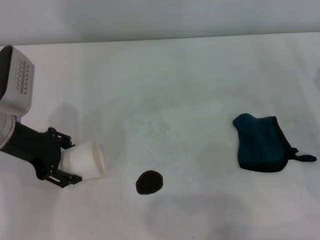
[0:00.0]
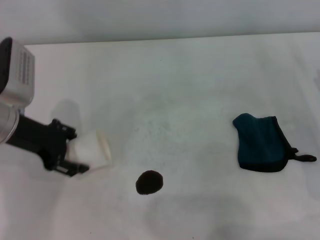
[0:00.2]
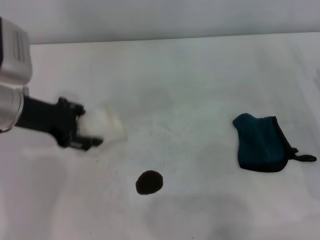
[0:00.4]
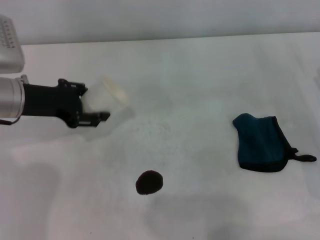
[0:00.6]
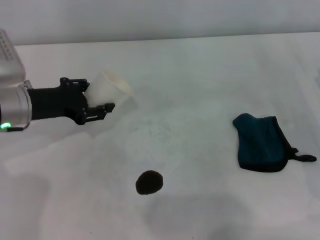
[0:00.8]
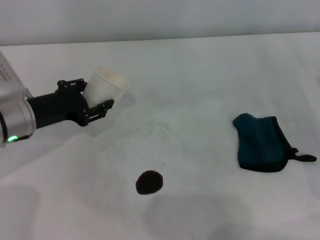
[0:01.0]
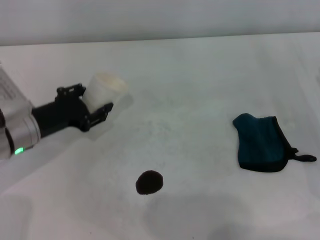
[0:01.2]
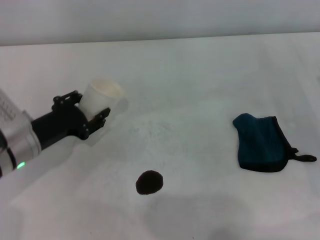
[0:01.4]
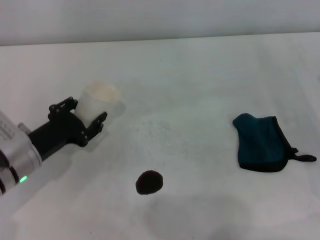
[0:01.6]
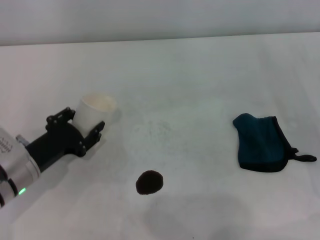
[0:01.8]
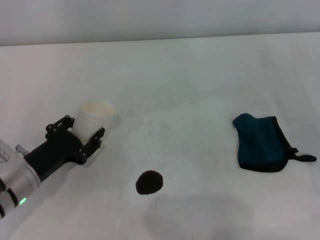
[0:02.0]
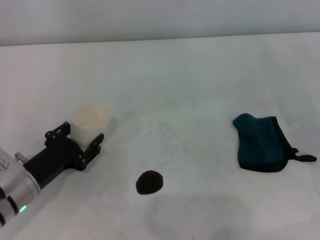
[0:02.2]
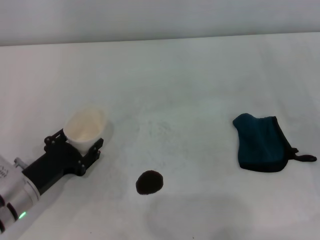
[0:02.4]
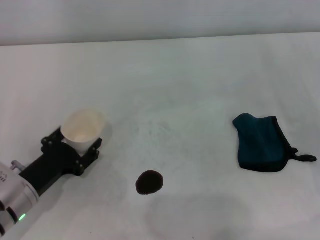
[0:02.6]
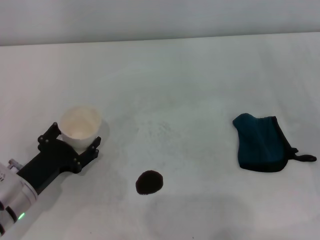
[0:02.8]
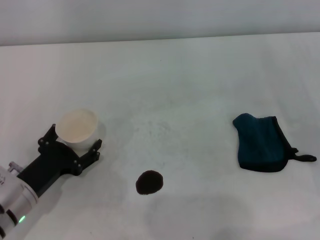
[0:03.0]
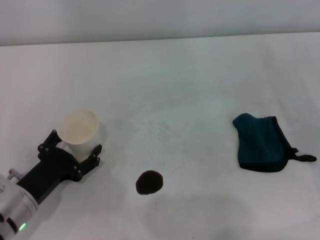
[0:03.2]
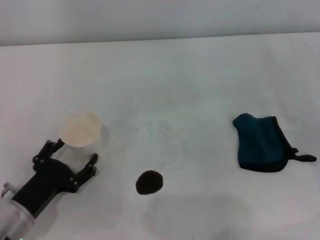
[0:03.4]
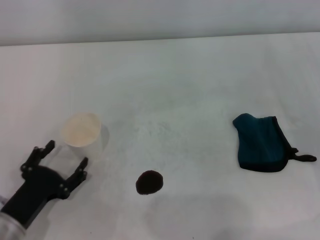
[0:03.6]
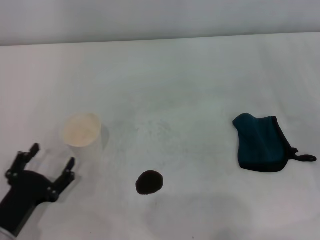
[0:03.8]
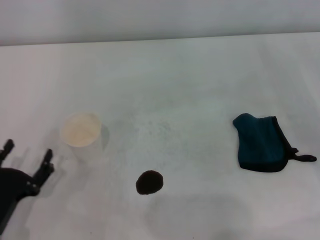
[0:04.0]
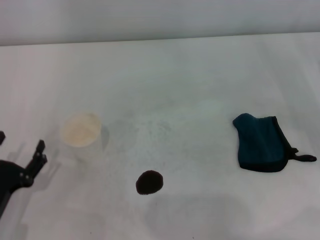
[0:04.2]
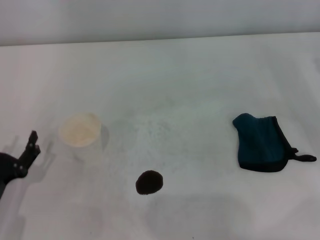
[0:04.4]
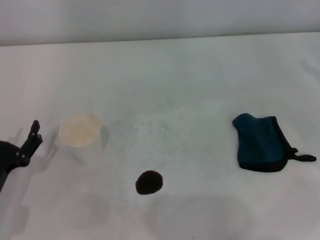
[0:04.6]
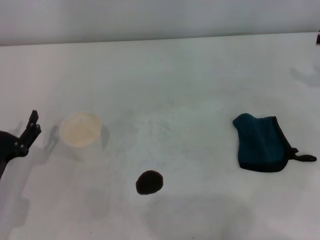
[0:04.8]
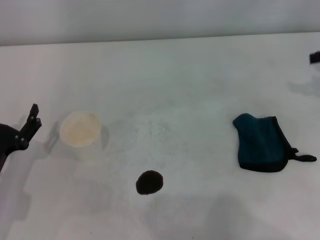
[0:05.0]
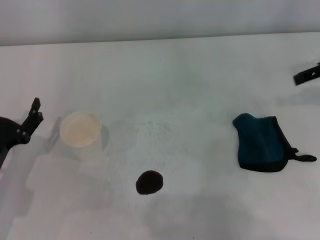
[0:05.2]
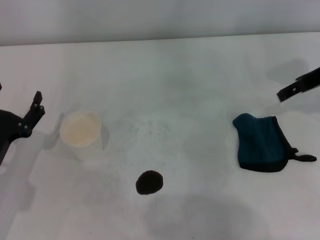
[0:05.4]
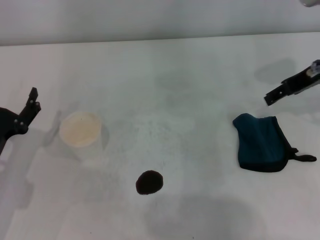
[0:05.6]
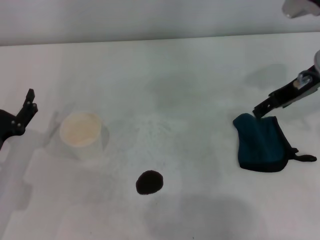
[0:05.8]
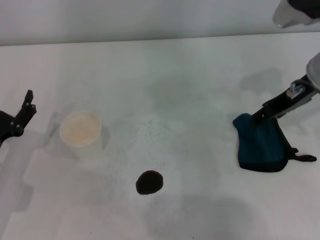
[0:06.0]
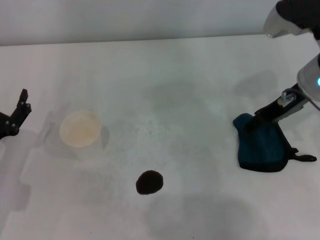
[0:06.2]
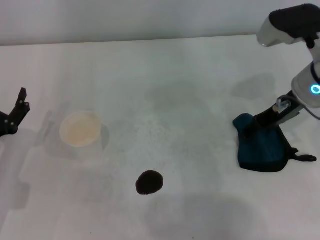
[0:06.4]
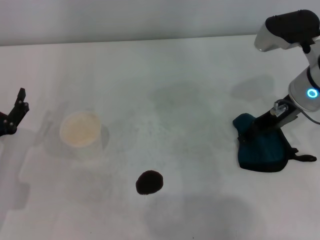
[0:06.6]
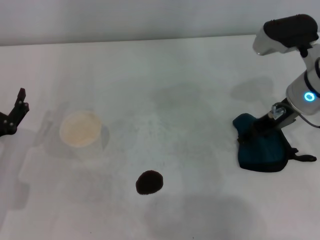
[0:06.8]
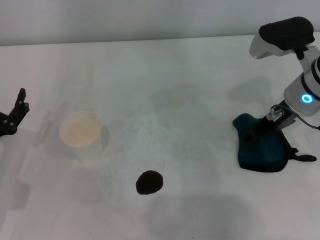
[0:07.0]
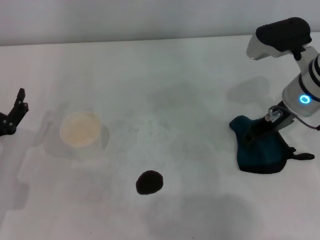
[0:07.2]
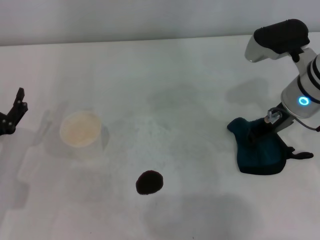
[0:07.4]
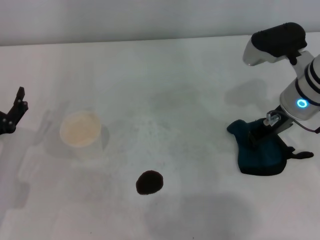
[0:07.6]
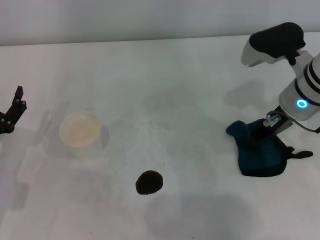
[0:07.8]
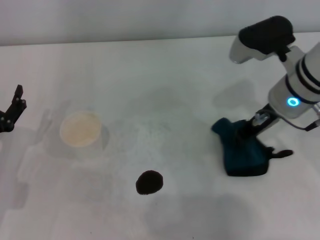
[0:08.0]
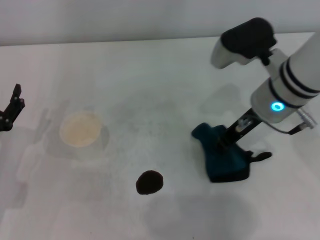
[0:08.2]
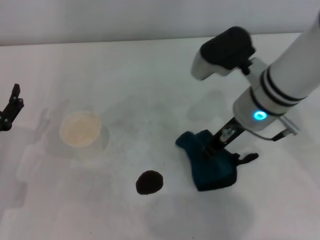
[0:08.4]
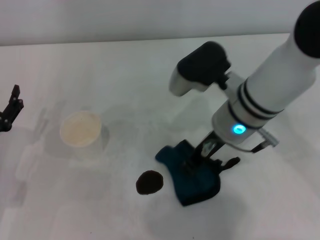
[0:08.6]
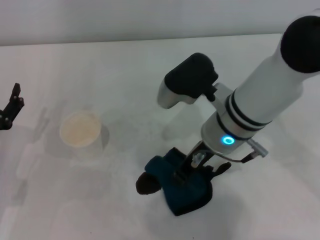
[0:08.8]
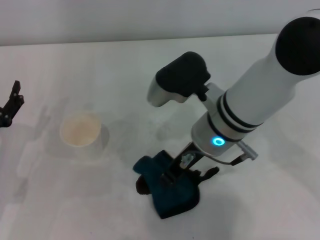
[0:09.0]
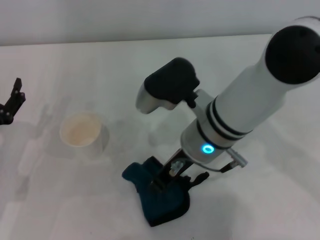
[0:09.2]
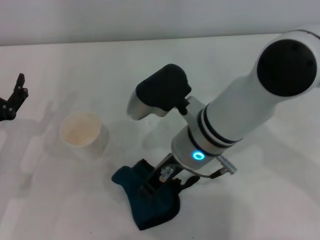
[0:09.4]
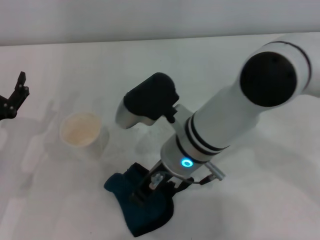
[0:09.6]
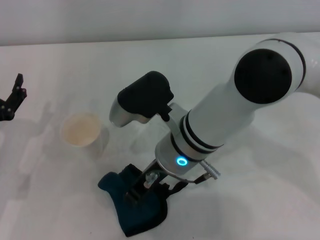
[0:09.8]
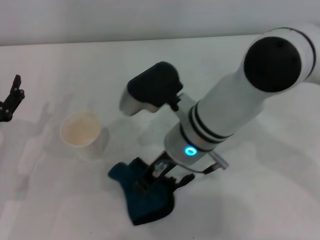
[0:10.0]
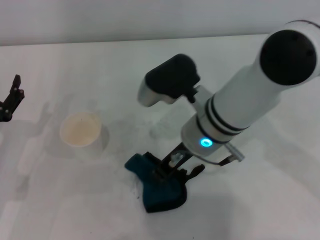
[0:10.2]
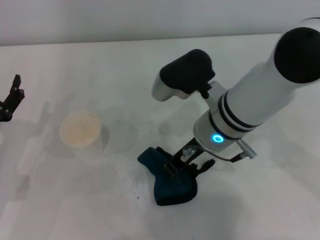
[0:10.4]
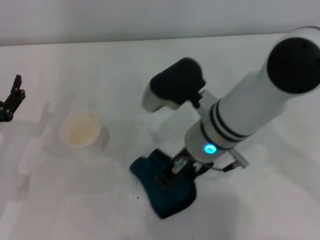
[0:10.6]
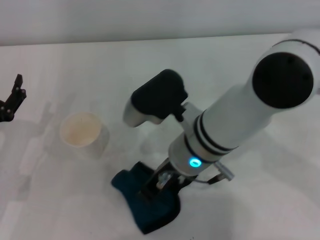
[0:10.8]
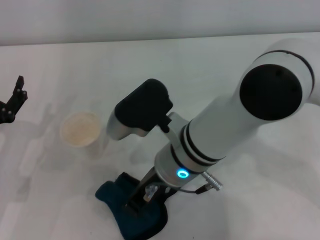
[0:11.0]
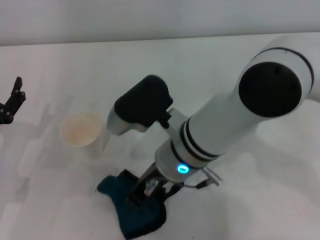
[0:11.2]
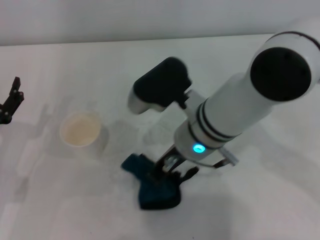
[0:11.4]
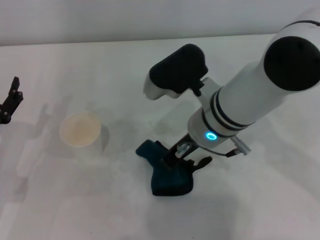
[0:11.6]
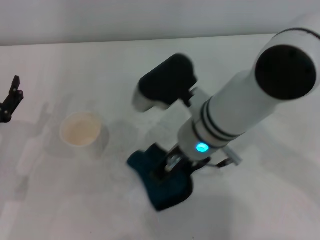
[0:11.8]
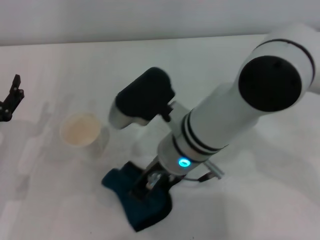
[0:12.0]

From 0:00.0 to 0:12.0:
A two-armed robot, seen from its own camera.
Step, from 0:00.0 to 0:03.2: Stand the paper cup upright with the left gripper.
Step, from 0:03.4 to 0:07.8: Grasp the rag with the right gripper.
From 0:00.0 to 0:01.6: The left gripper heads downward and backward, covering roughly 10 cm, and closes.
From 0:01.6 to 0:03.0: The left gripper goes about 5 cm backward, and opens up.
From 0:03.0 to 0:04.4: The left gripper shifts about 5 cm backward, and opens its fingers.
From 0:04.4 to 0:06.0: The left gripper travels forward by approximately 5 cm; the right gripper moves to the left, some 20 cm.
From 0:06.0 to 0:07.6: The right gripper moves approximately 5 cm, and closes up.
From 0:07.6 to 0:09.0: The right gripper goes some 15 cm to the left.
From 0:09.0 to 0:10.4: The grippers move only a little.
From 0:10.4 to 0:12.0: The right gripper moves left and right over roughly 5 cm, changing direction 2 times.

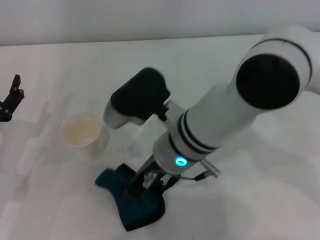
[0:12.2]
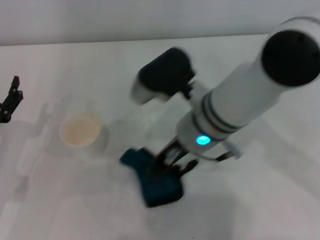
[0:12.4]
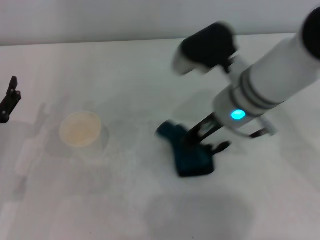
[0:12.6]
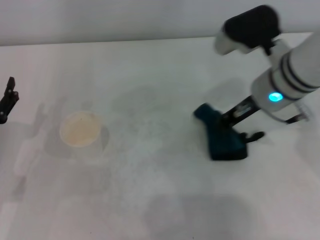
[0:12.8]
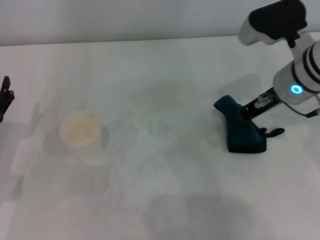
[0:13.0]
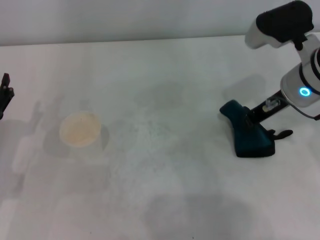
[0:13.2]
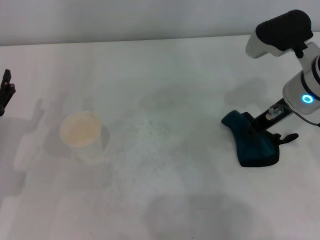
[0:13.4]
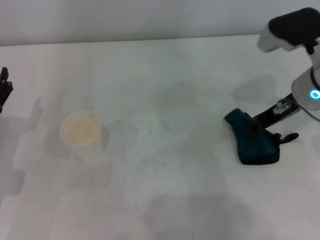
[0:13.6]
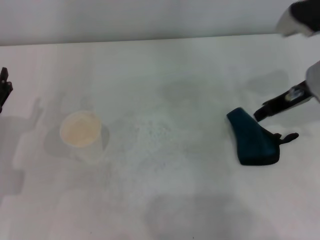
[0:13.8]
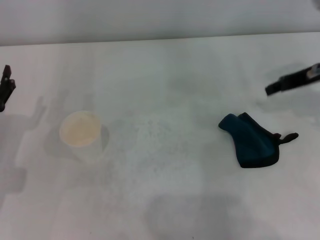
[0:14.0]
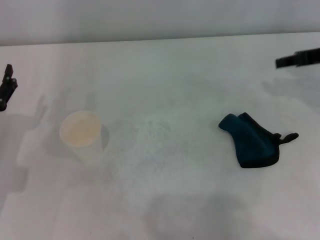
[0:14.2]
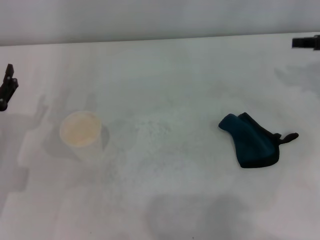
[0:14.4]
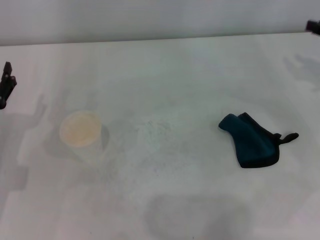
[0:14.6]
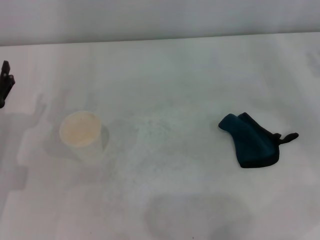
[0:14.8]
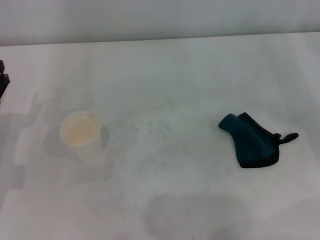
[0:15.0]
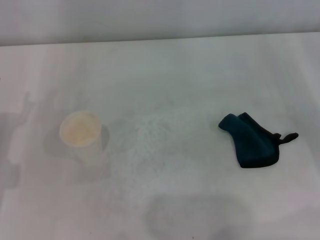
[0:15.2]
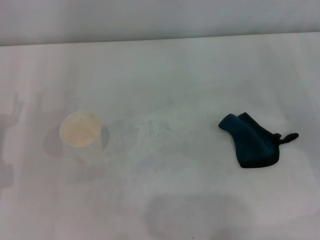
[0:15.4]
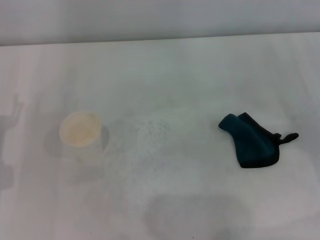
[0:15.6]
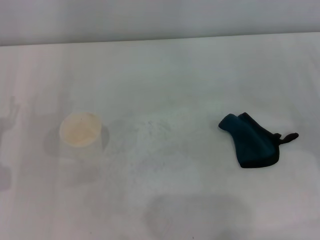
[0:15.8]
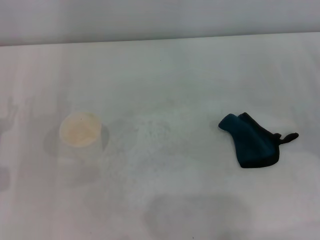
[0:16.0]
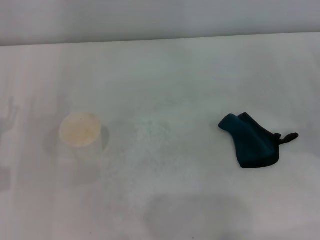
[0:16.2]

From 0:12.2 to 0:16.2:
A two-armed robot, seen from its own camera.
Step, from 0:12.8 to 0:13.4: Place the rag on the table with the right gripper.
From 0:12.2 to 0:13.6: The right gripper goes about 20 cm to the right.
From 0:13.6 to 0:14.8: The right gripper heads to the right, covering approximately 15 cm.

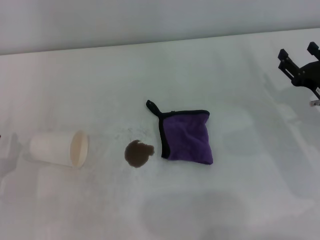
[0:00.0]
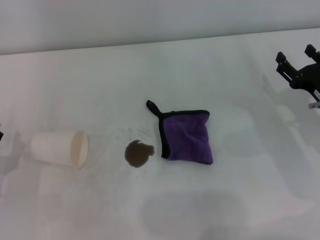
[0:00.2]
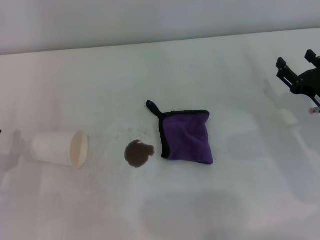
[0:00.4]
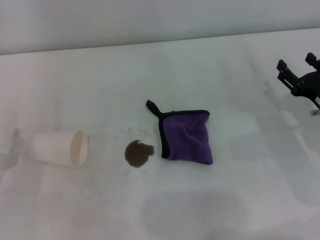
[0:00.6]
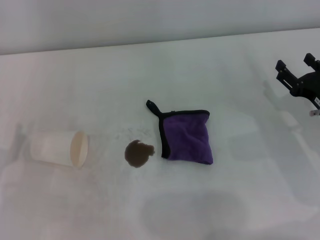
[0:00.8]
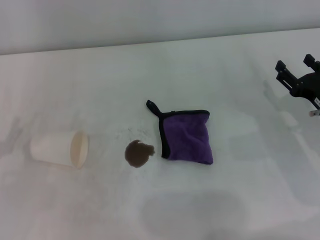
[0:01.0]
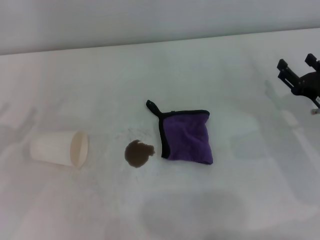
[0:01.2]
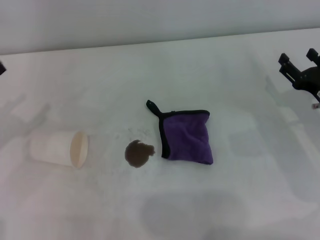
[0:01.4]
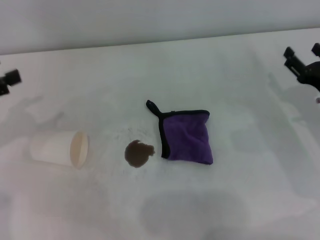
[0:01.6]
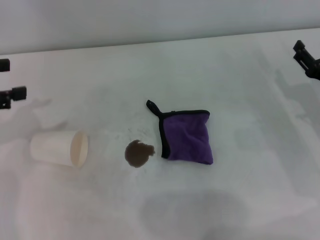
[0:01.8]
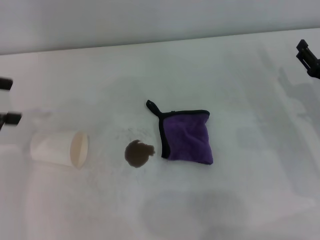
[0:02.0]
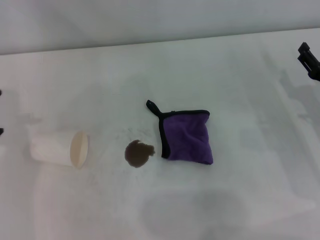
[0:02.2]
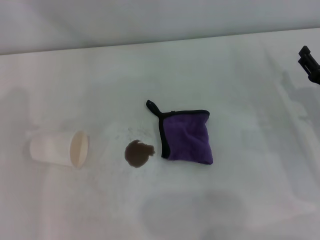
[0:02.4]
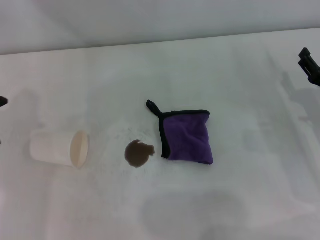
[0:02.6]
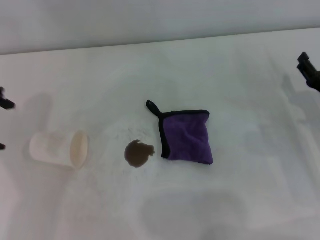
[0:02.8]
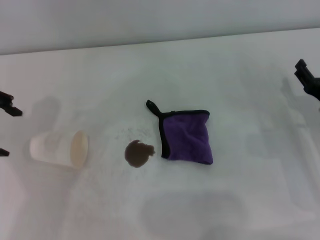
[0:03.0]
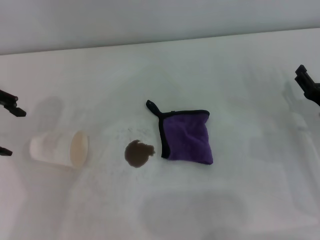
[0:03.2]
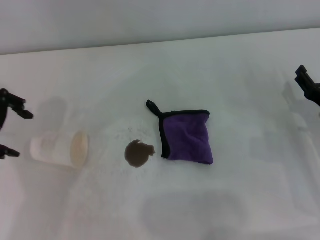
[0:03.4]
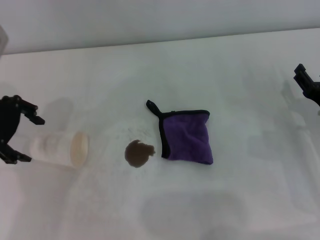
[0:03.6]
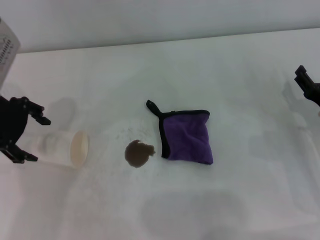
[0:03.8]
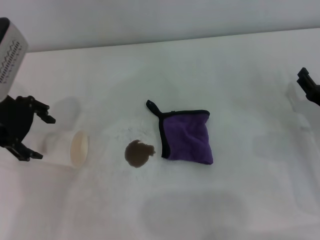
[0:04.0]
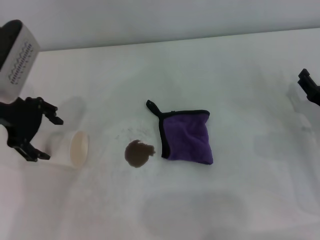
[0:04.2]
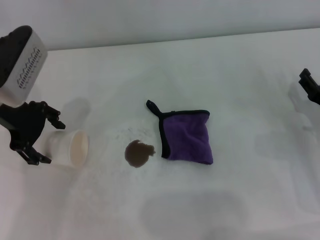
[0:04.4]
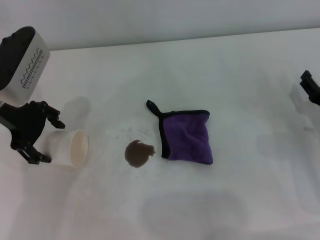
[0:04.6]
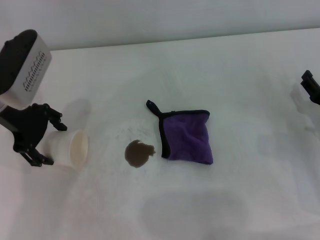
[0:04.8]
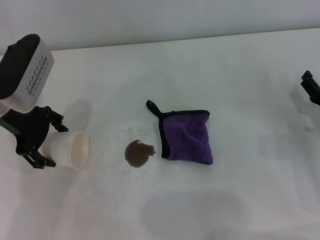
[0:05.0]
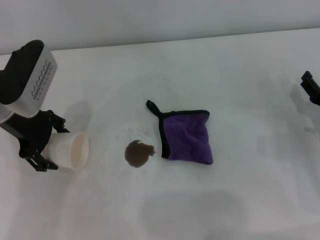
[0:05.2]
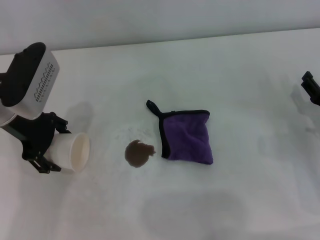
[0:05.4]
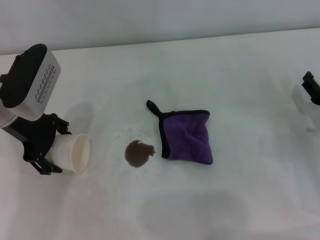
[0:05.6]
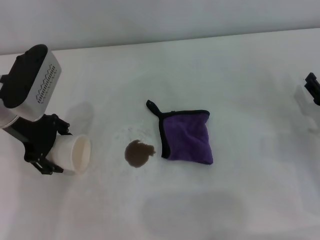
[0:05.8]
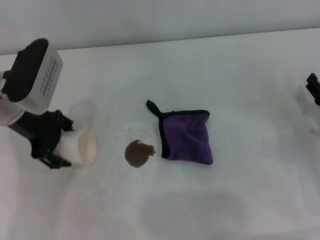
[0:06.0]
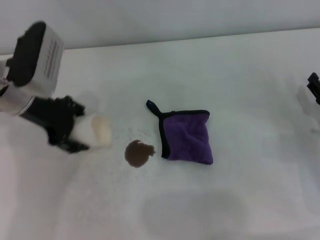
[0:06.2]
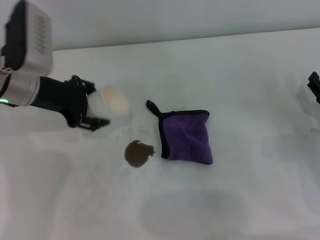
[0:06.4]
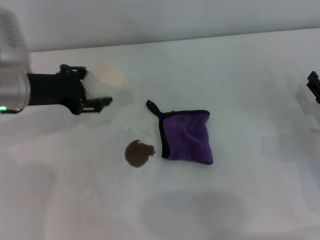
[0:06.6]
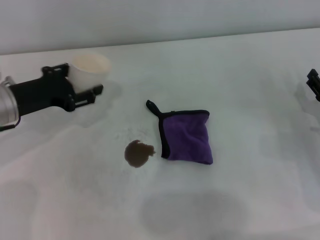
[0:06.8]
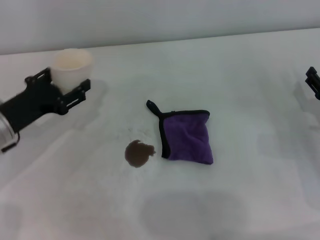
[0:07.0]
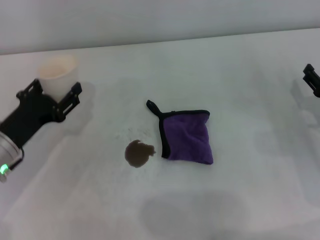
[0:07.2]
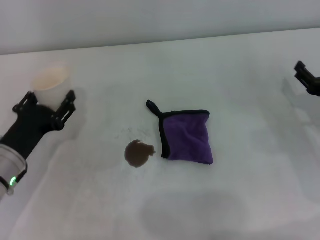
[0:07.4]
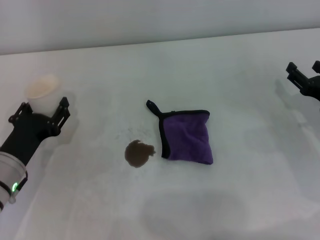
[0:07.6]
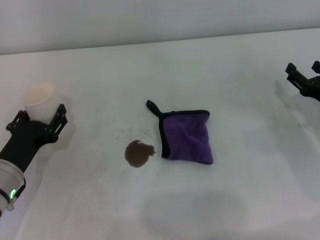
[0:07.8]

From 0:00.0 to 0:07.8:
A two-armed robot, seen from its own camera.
Step, from 0:00.0 to 0:05.6: Grasp the paper cup with the left gripper.
From 0:00.0 to 0:01.6: The left gripper shifts some 20 cm upward, forward and to the left.
From 0:01.6 to 0:03.2: The left gripper moves to the right, upward and forward, approximately 10 cm.
From 0:03.2 to 0:04.6: The left gripper goes approximately 10 cm downward and to the right.
From 0:04.6 to 0:06.2: The grippers move only a little.
From 0:06.2 to 0:07.8: The left gripper moves downward and backward, approximately 20 cm.
